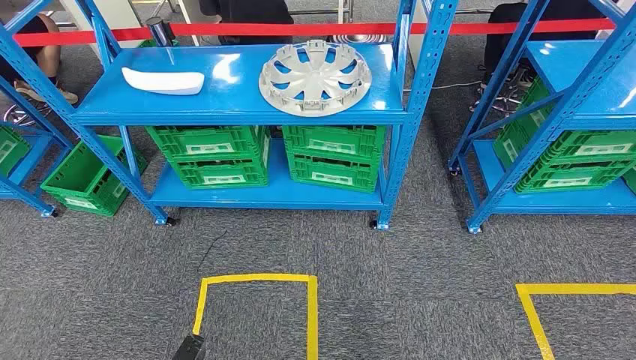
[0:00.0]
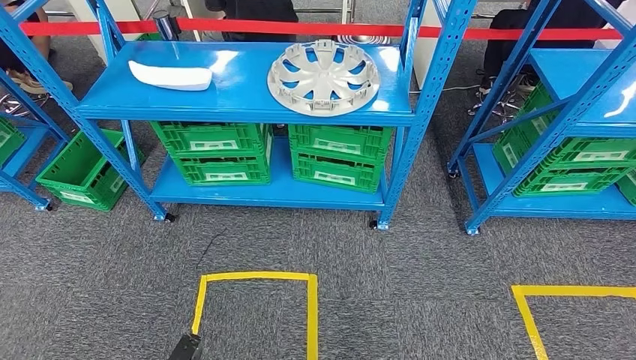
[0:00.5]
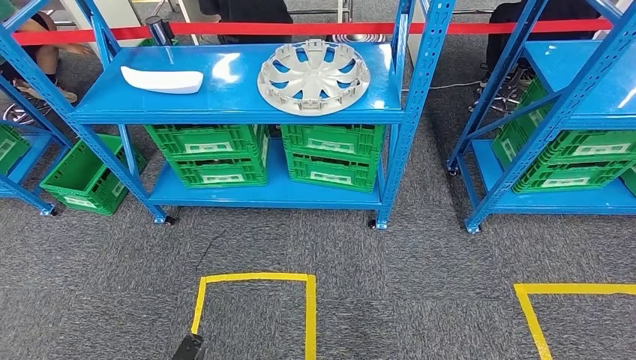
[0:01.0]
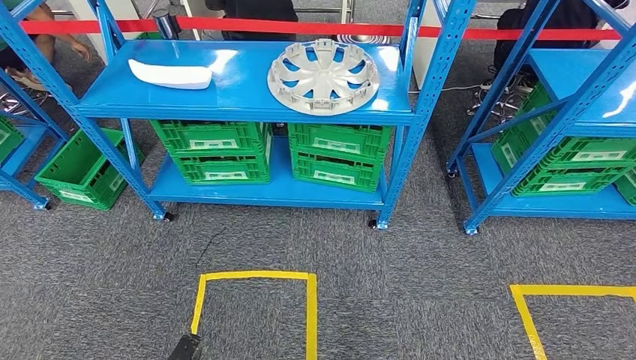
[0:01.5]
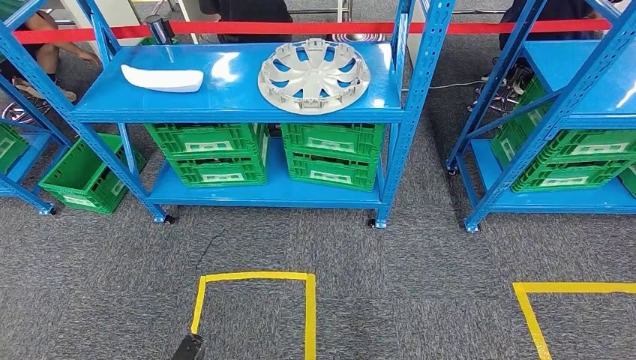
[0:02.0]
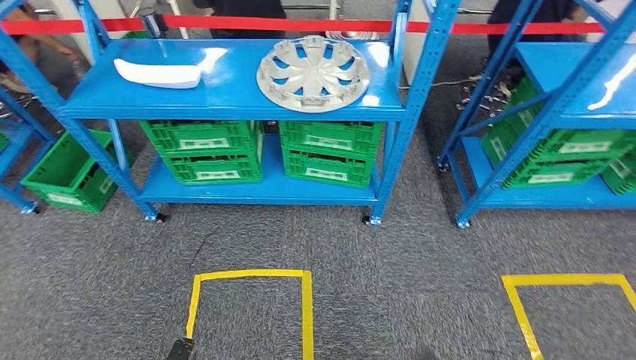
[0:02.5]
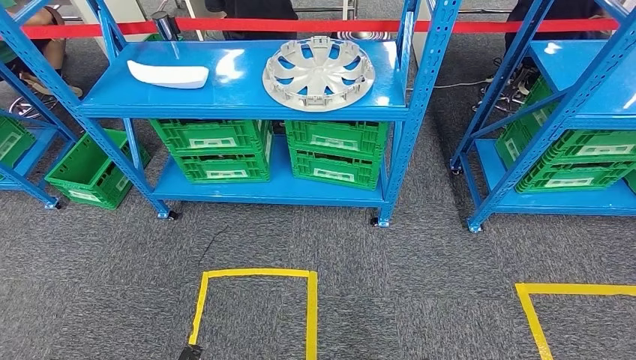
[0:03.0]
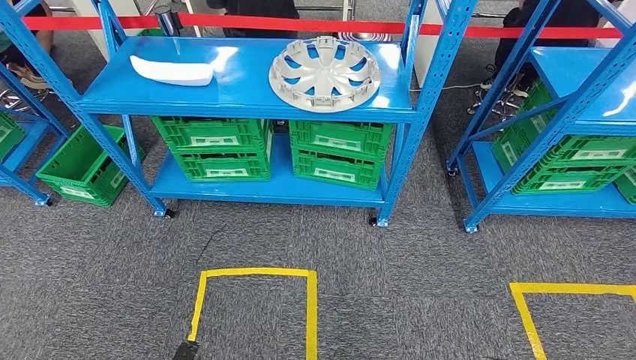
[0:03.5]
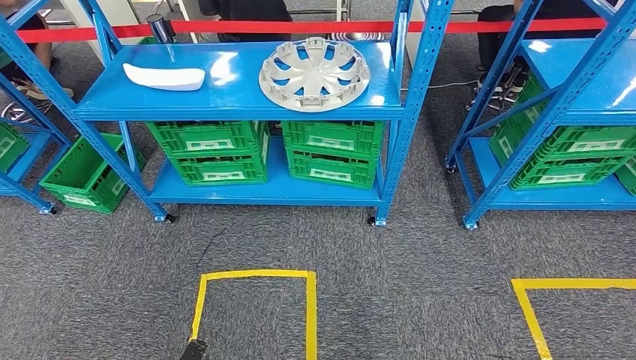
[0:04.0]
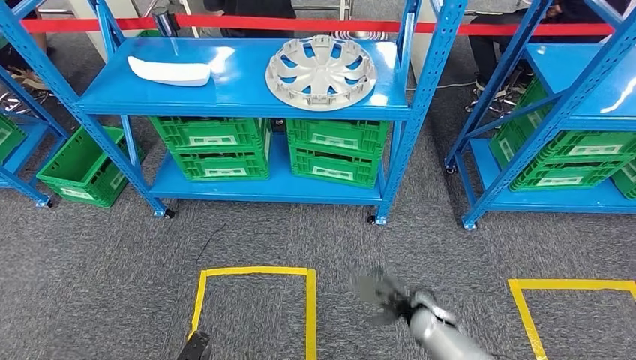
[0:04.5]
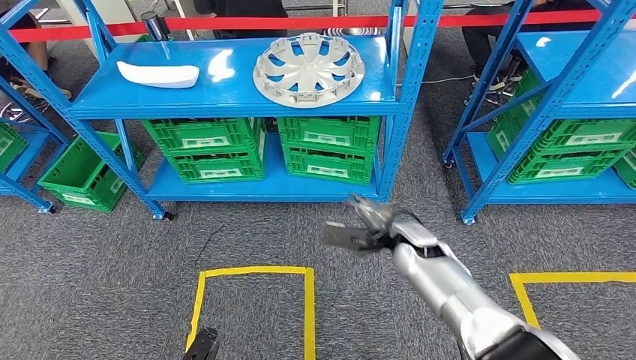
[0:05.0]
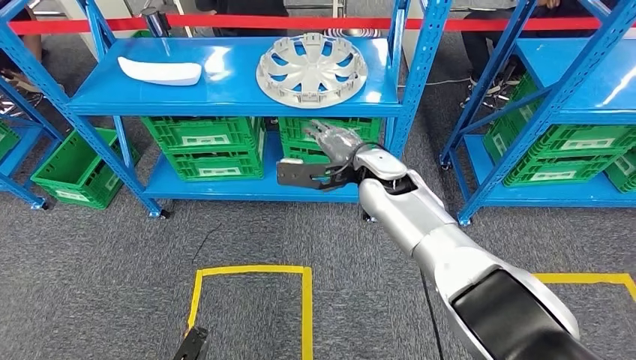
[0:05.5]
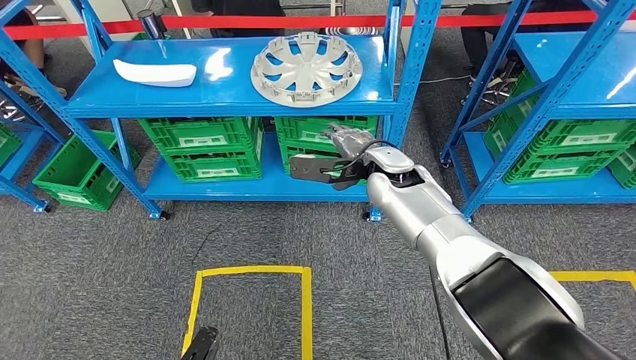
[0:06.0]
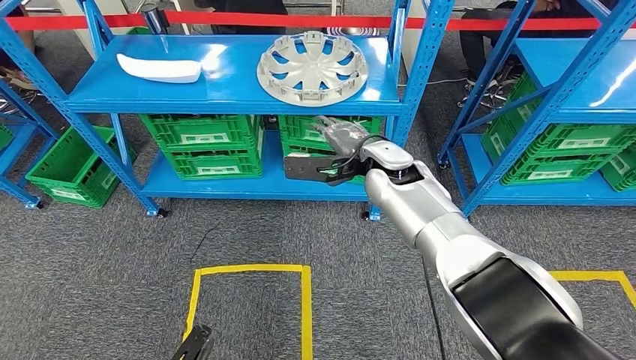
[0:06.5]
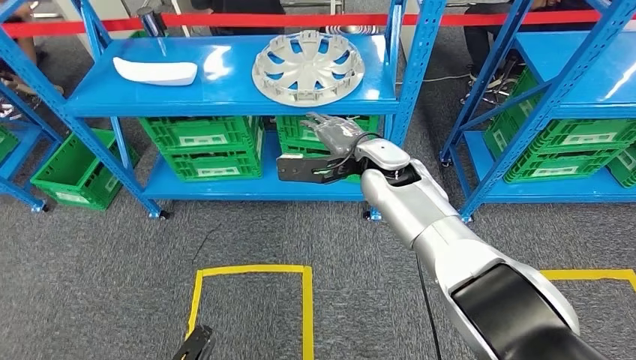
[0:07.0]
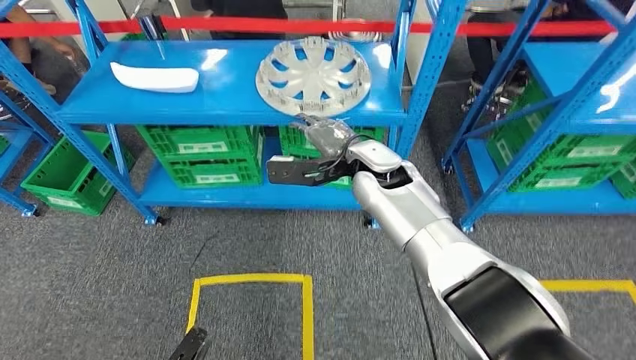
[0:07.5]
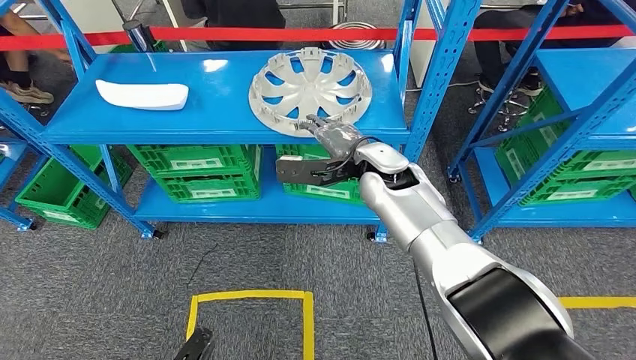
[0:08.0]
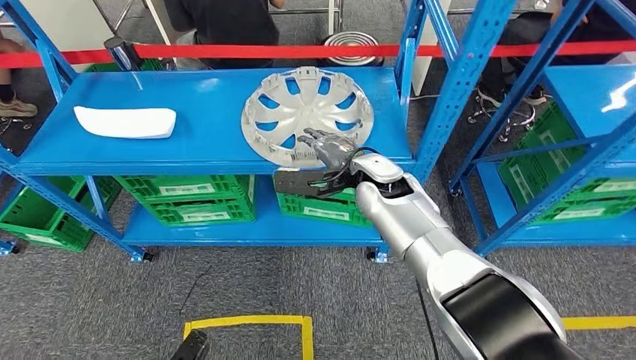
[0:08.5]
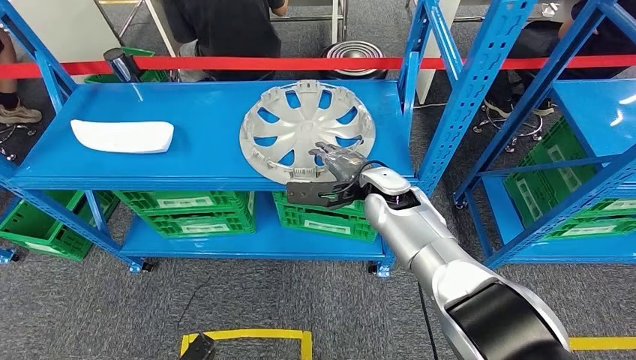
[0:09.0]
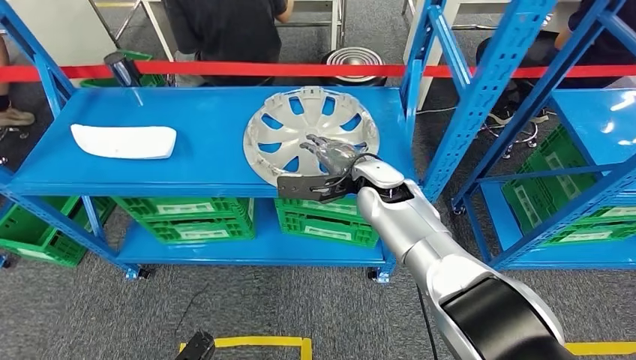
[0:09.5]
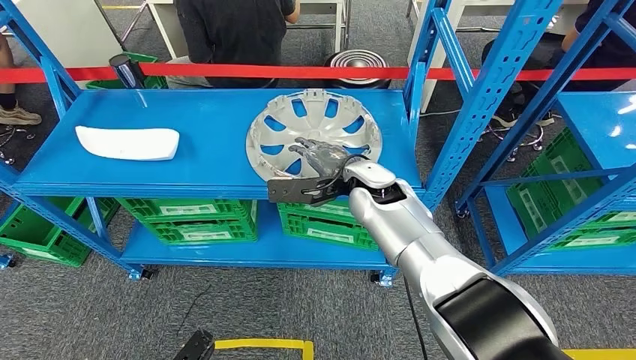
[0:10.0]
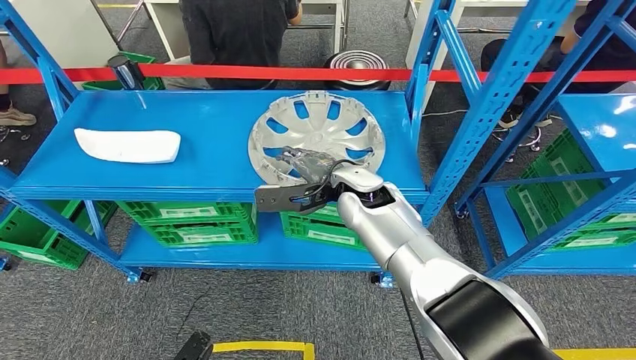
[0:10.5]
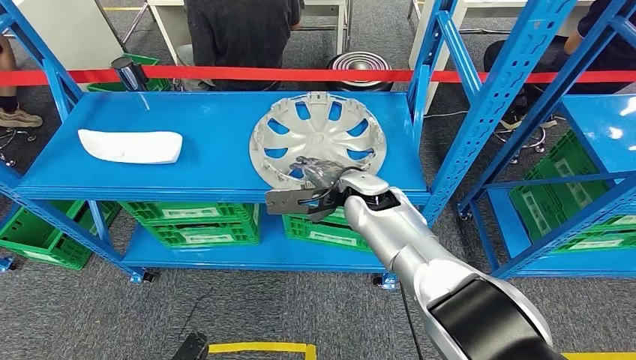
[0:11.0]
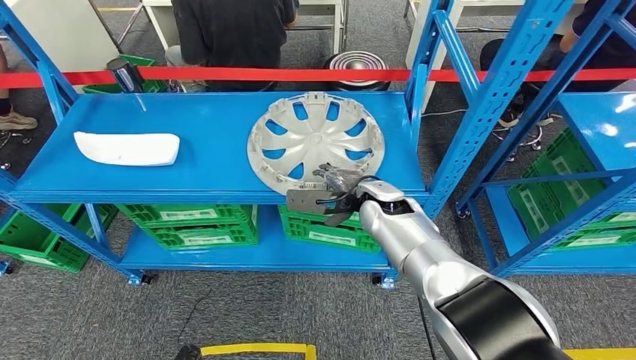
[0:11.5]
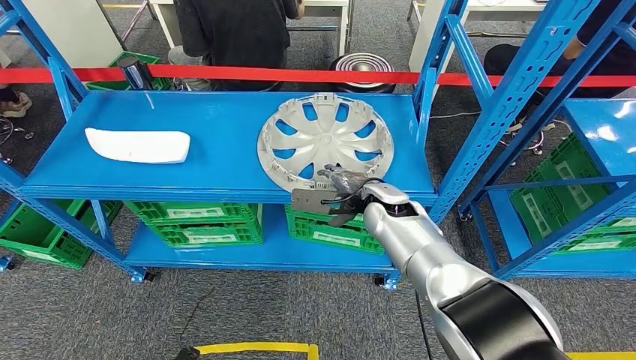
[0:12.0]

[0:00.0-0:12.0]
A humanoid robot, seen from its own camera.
0:02.0 to 0:04.0: The right hand is displaced forward by approximately 5 cm.

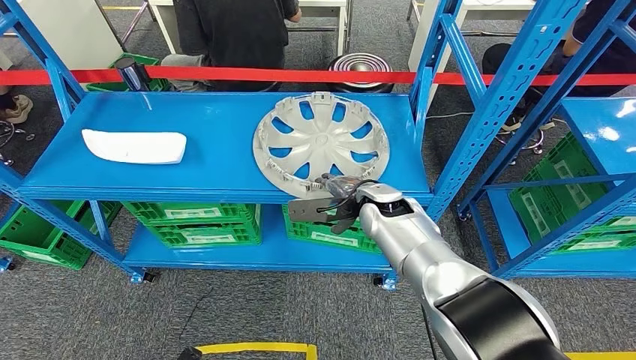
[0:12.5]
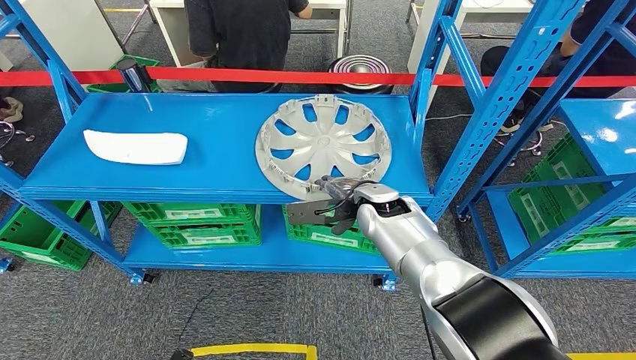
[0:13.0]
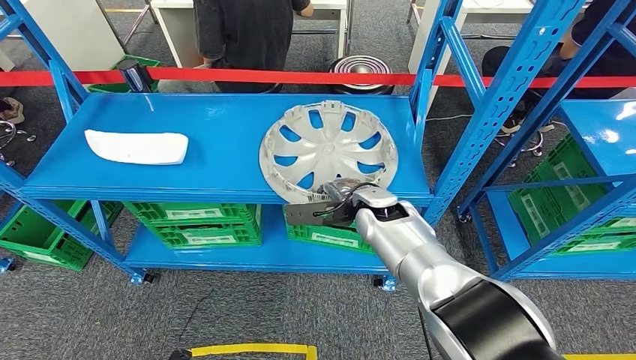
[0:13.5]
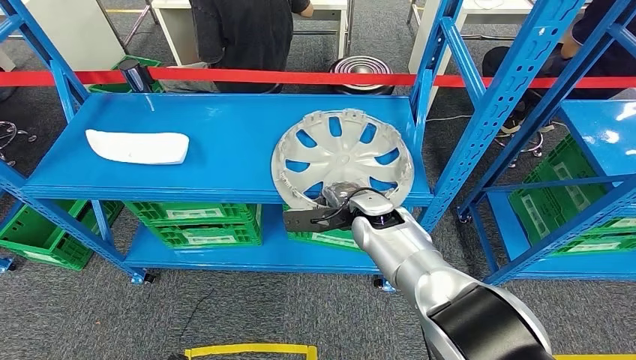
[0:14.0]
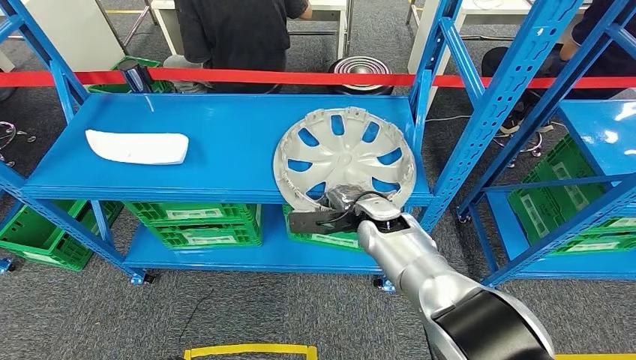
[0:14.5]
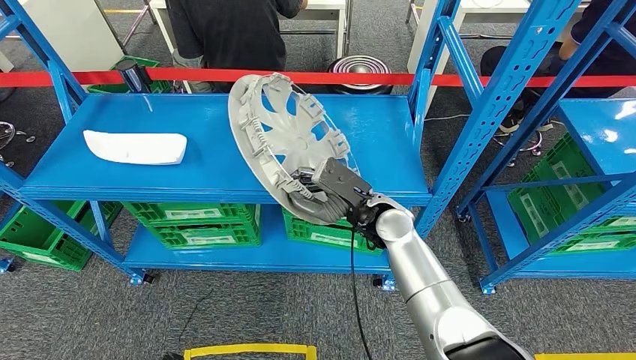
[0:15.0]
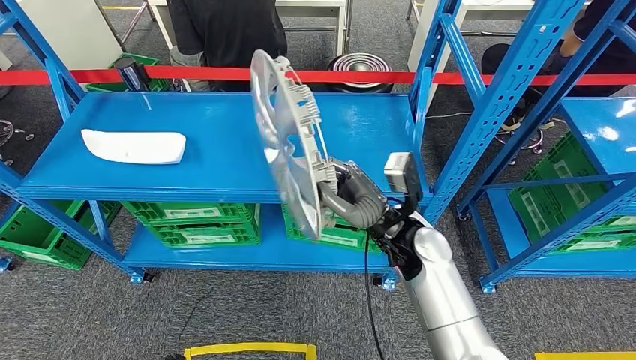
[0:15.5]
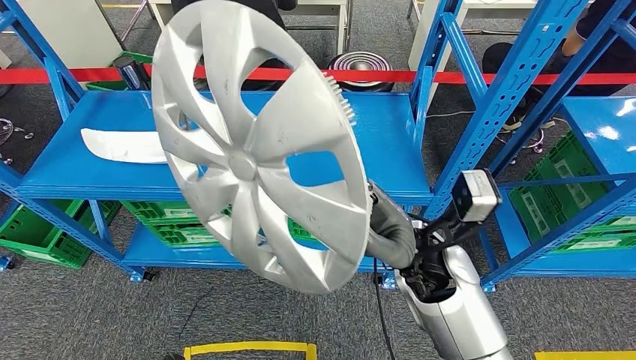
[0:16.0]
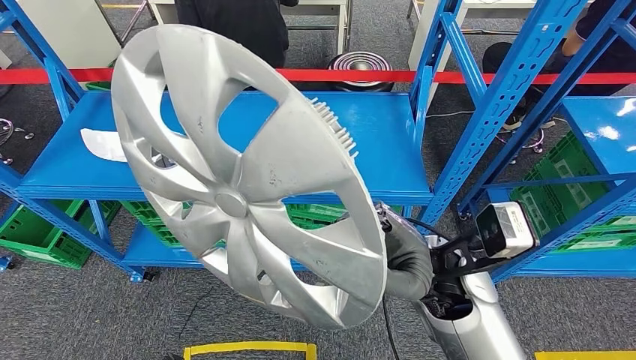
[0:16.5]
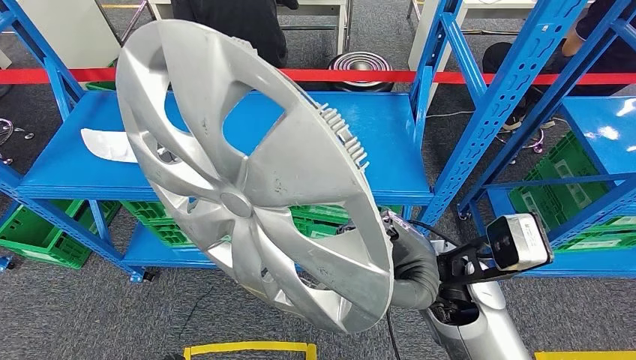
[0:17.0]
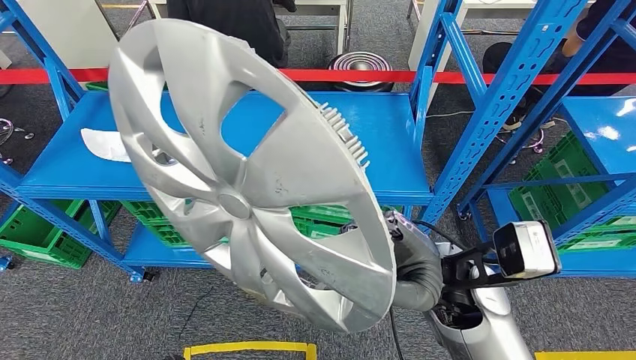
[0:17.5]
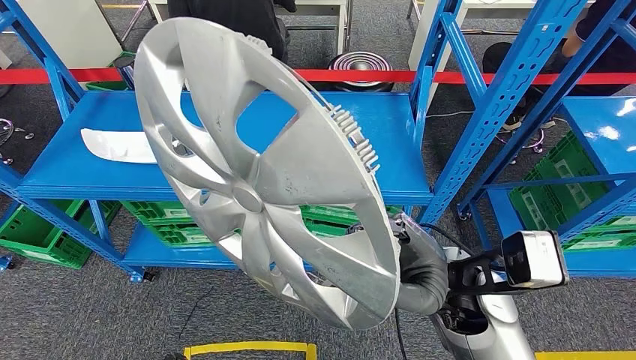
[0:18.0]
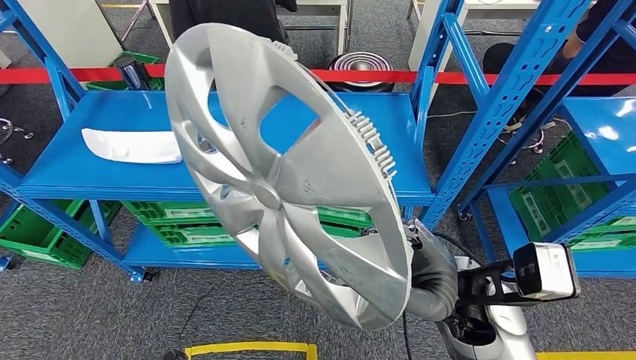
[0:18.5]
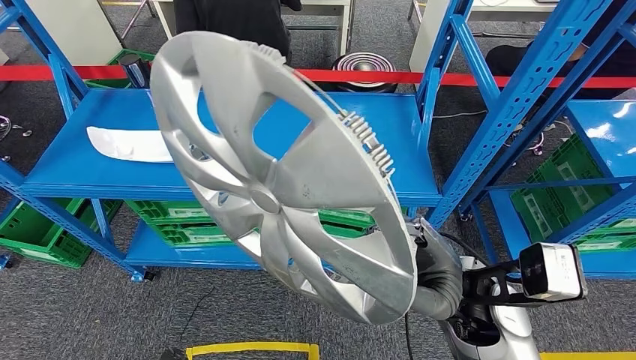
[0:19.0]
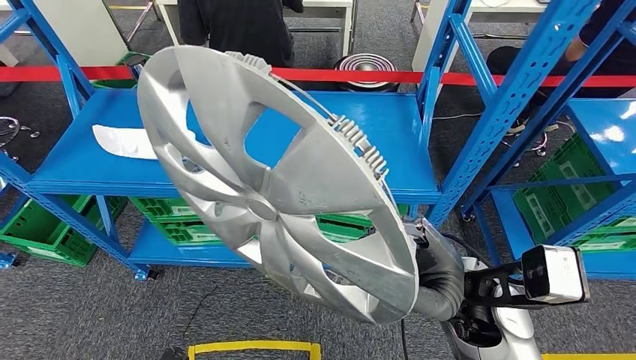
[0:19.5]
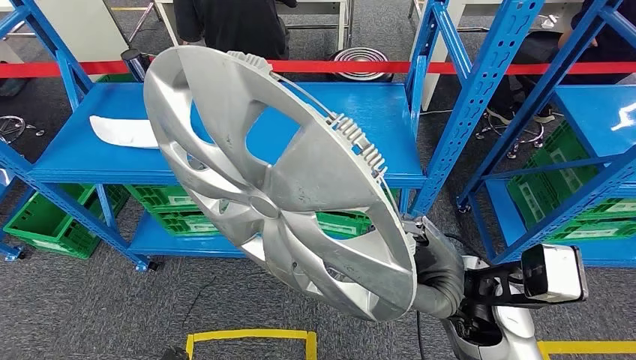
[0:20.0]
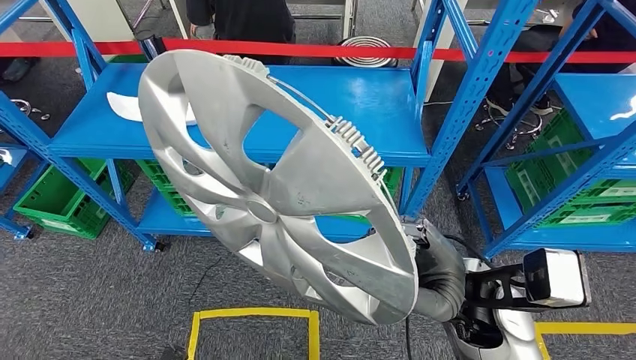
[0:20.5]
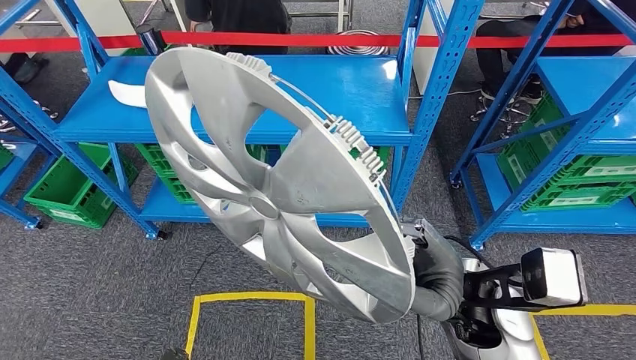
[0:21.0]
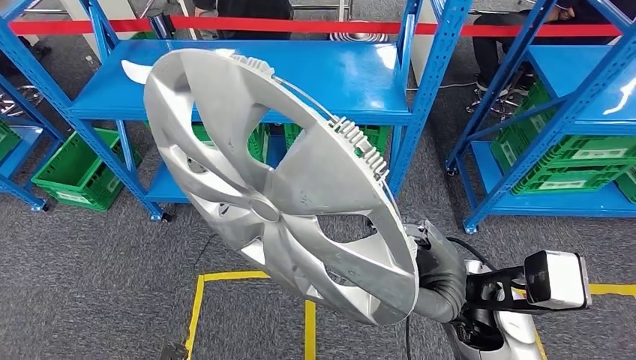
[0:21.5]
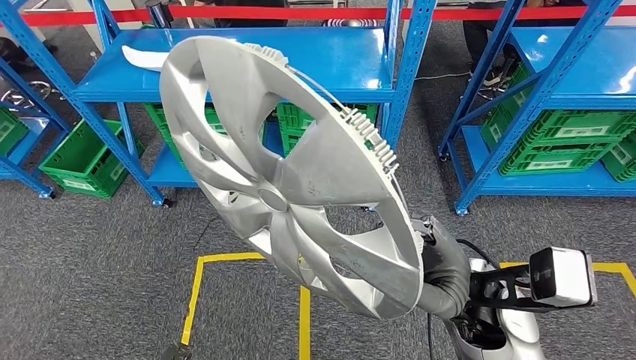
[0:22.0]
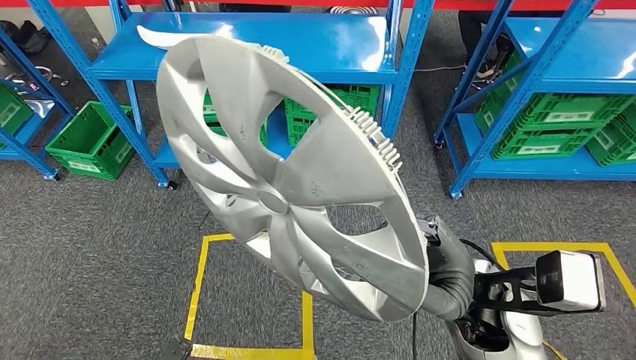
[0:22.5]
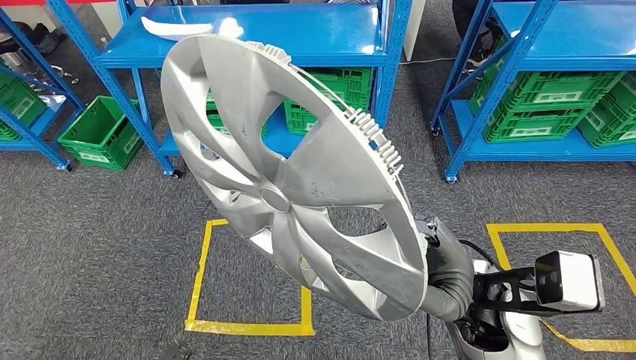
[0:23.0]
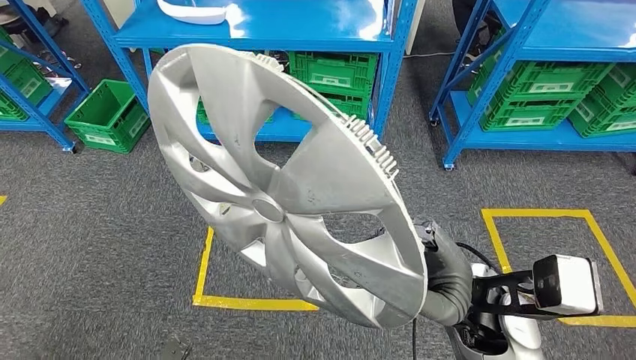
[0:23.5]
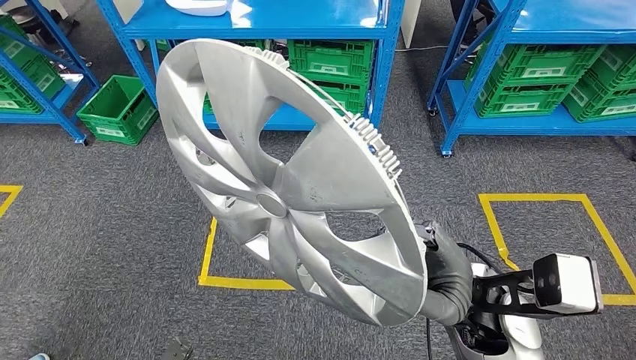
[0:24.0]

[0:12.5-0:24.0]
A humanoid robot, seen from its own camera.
Step, 0:12.5 to 0:16.5: Pick up the small component from the shelf.
0:12.5 to 0:14.5: The hands stay close to where they were, moving slightly.
